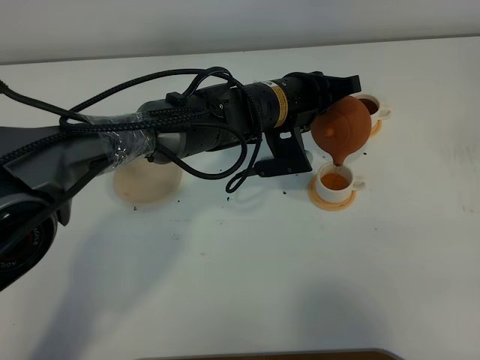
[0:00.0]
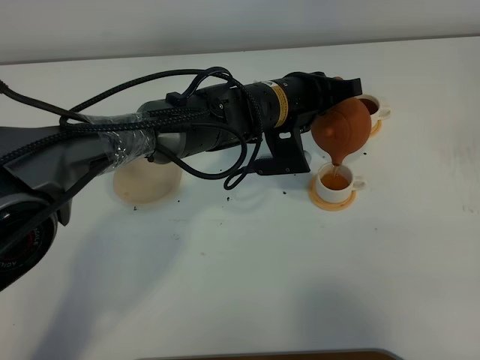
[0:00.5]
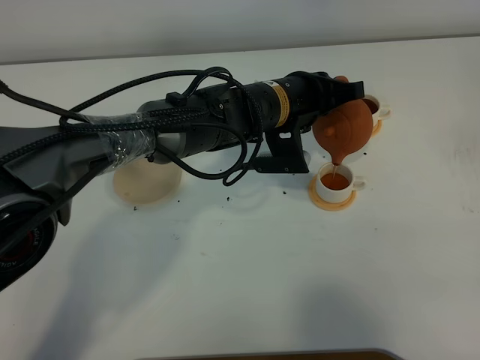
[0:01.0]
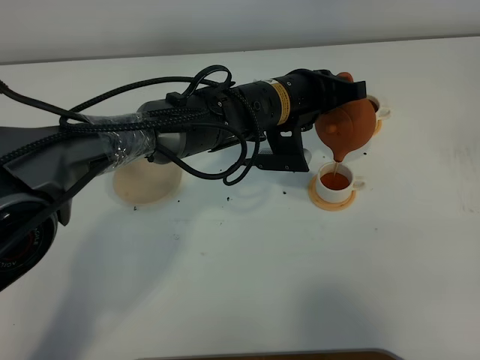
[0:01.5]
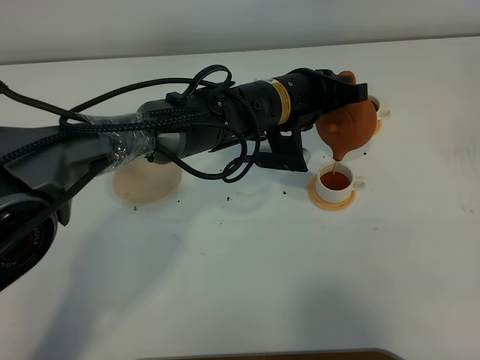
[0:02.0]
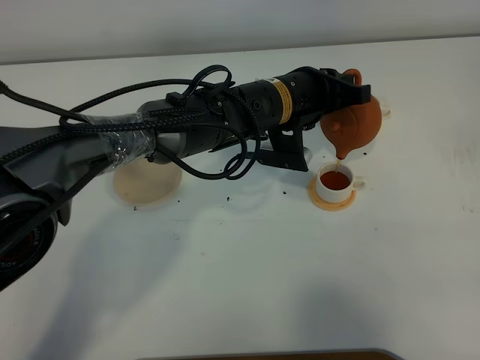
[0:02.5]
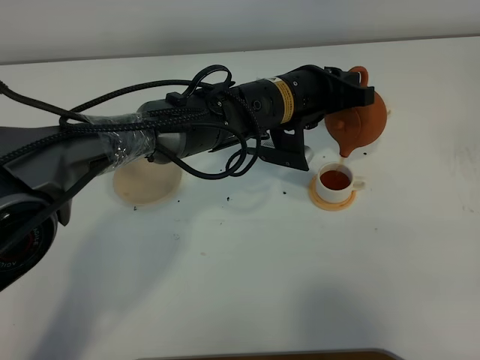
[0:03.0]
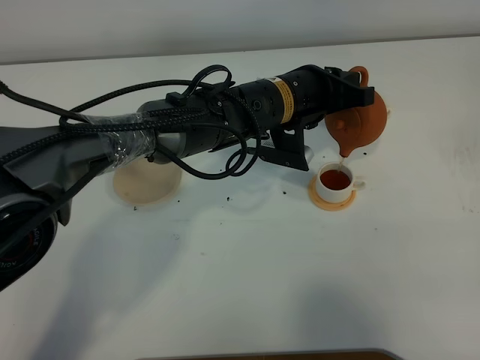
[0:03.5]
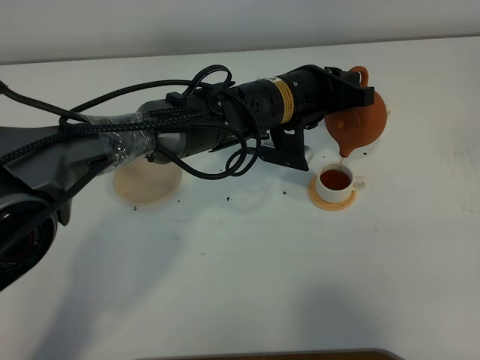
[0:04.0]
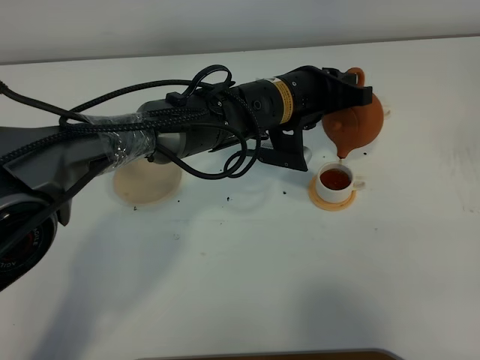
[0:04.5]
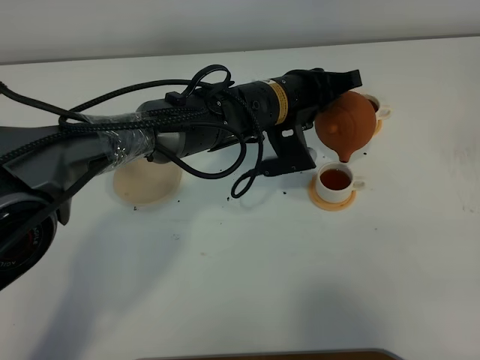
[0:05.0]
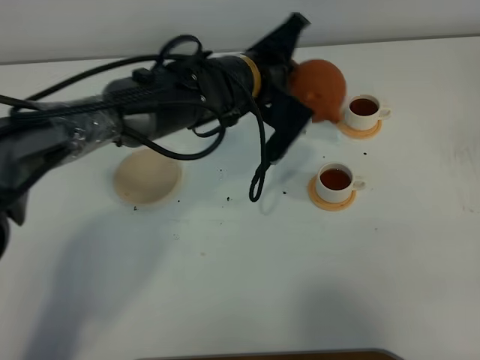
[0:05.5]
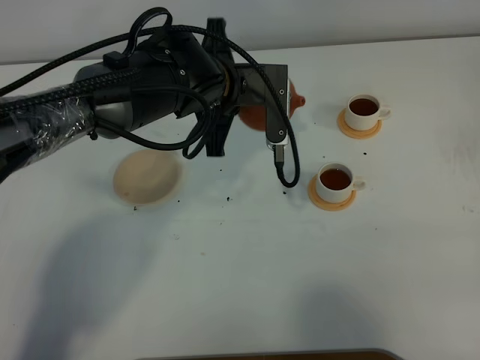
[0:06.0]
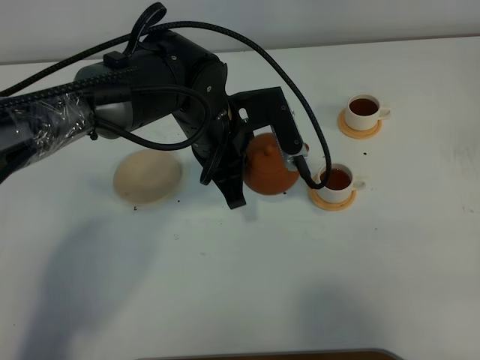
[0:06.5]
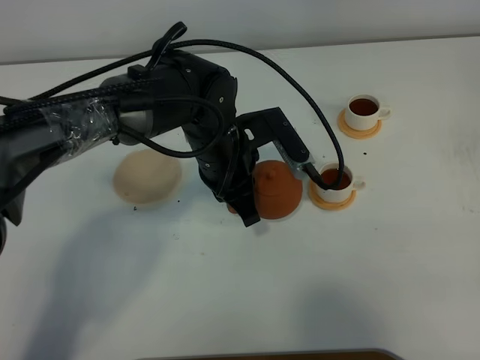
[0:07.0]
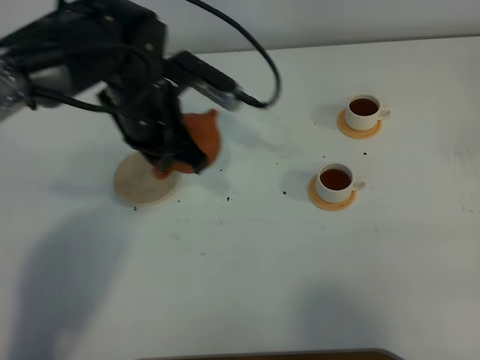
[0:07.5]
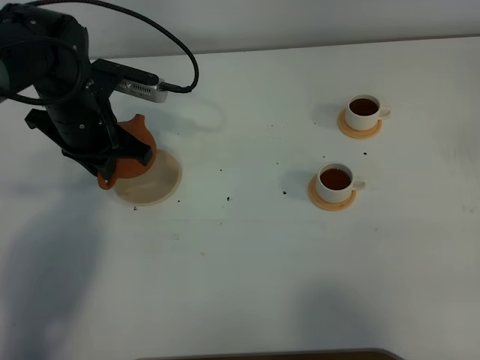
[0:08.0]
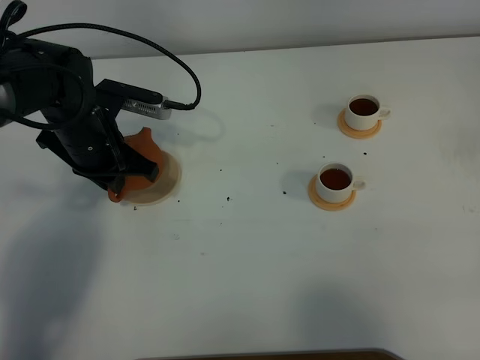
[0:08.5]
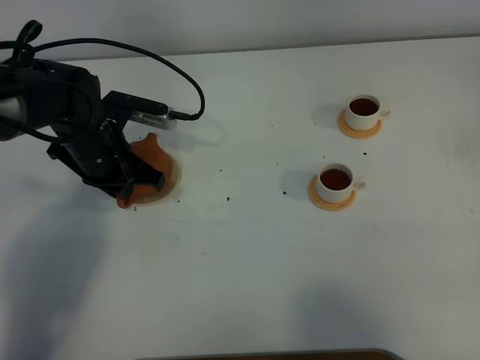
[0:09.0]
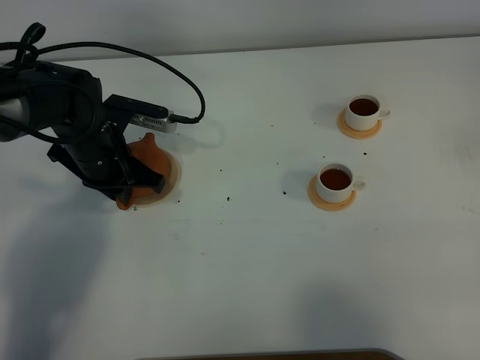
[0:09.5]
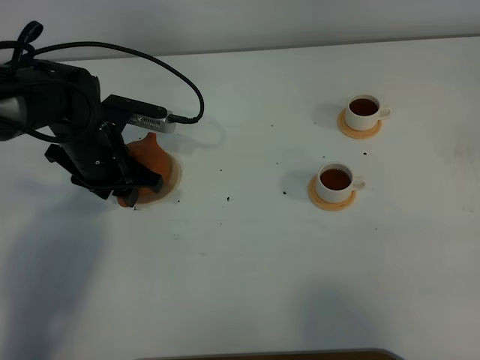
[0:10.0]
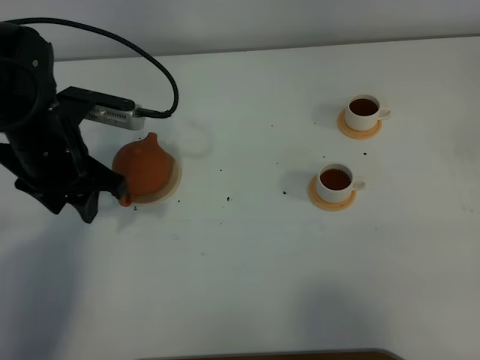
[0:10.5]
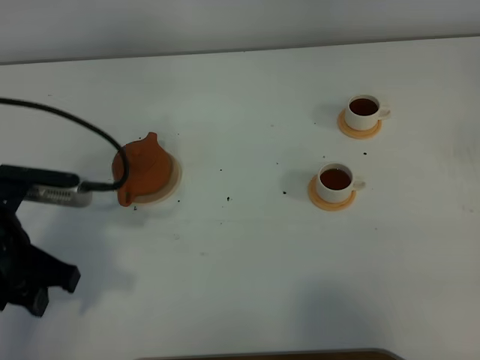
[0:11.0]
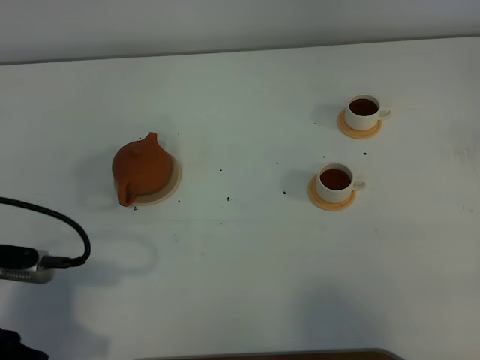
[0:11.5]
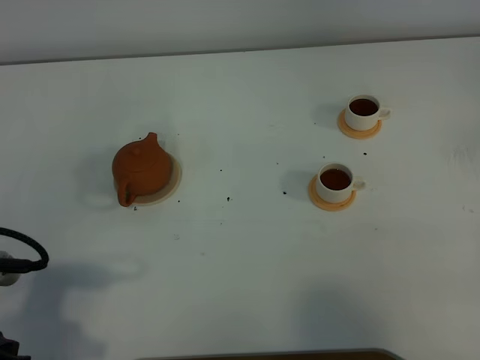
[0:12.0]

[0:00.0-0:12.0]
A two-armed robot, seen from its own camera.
Task of the whole recording: grasp the brown teapot and pour the tea into the two white teacups one by one, put the brown teapot back in its original place.
Step, 0:00.0 to 0:05.0: Pour tea into the teacup with the left gripper.
0:00.0 to 0:04.0: The grippers make only small movements.
0:04.0 to 0:06.0: The left gripper goes some 10 cm to the left.
0:06.0 to 0:08.0: The left gripper goes approximately 15 cm to the left.
0:08.0 to 0:10.0: The left gripper opens its fingers.
0:10.0 to 0:12.0: The left gripper shifts some 25 cm backward.

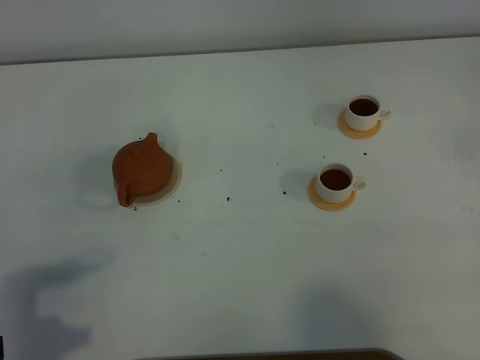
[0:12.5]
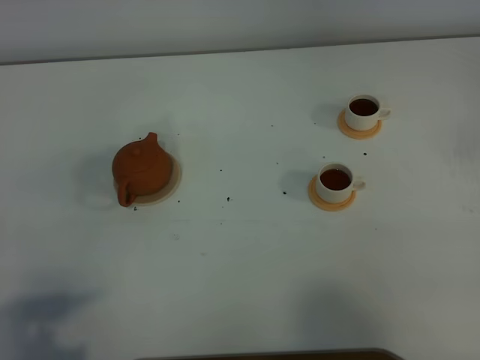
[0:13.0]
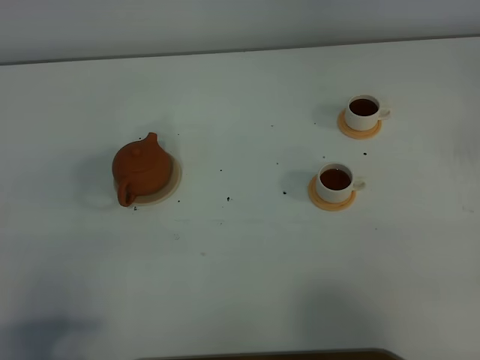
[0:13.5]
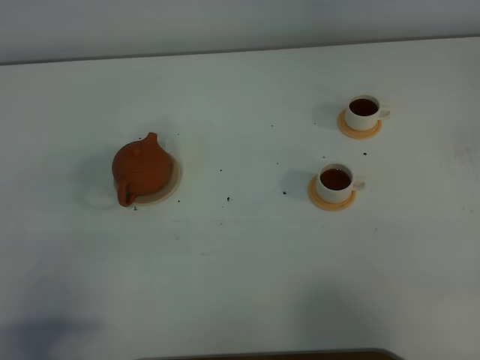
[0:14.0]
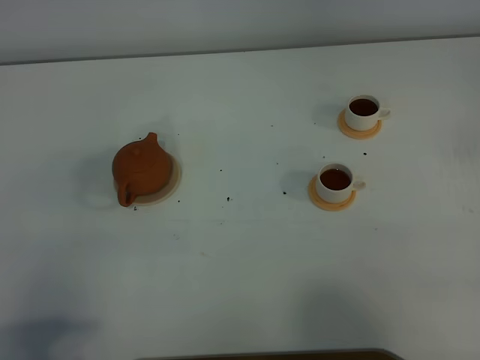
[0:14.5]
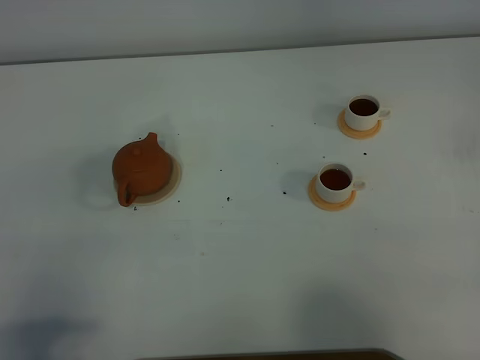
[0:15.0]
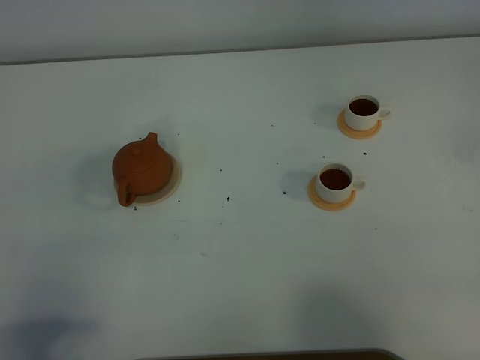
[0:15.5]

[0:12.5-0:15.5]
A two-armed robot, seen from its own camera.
Task of the whole recording: grasp the brown teapot and pour the tea into the two white teacups one by one, put the brown teapot back in its original place.
0:14.0 to 0:15.5: Neither gripper changes place.

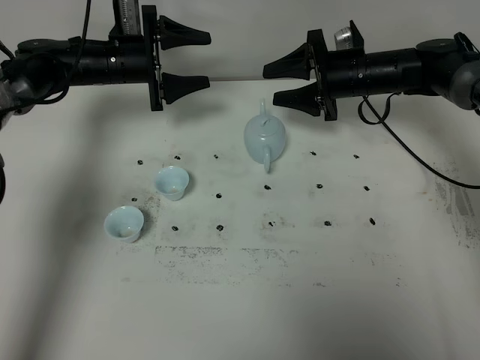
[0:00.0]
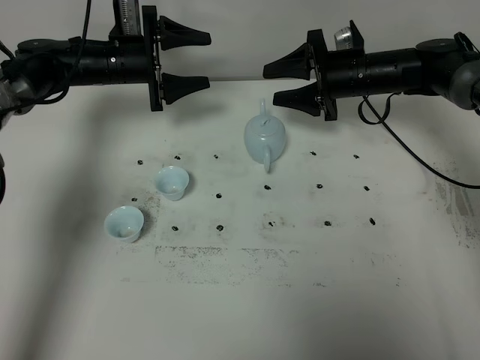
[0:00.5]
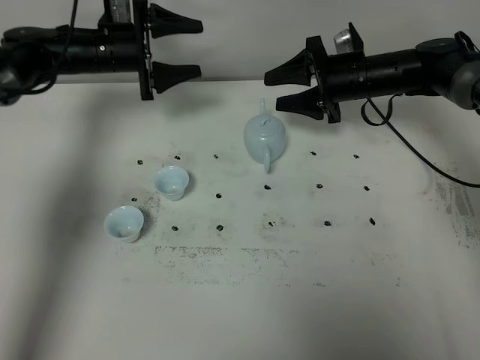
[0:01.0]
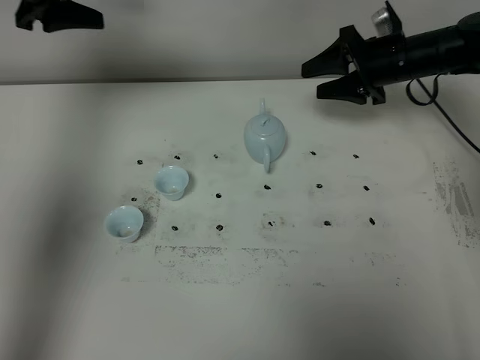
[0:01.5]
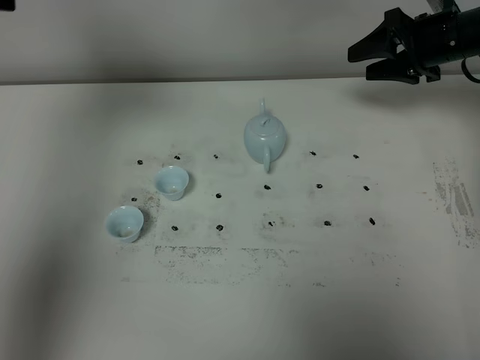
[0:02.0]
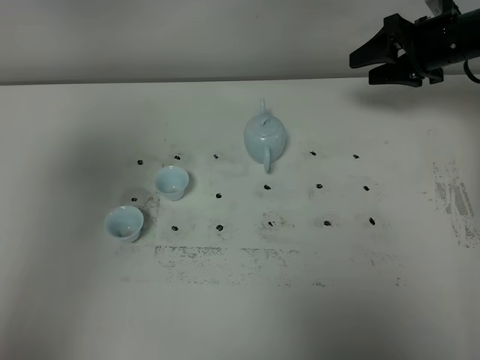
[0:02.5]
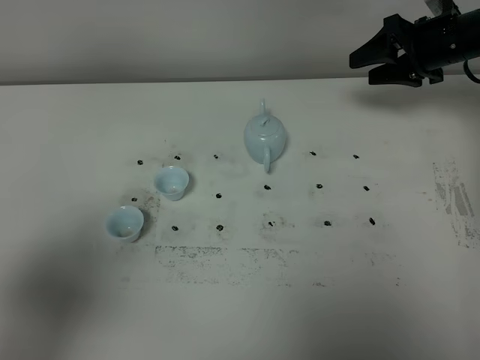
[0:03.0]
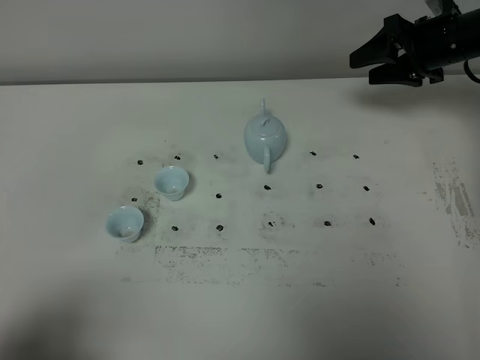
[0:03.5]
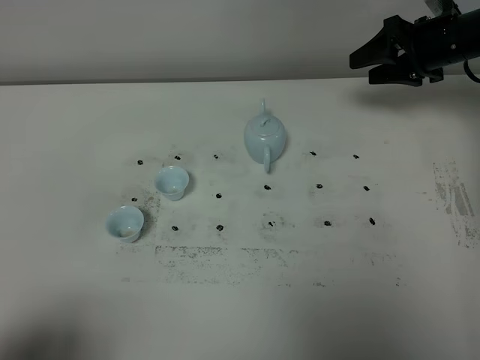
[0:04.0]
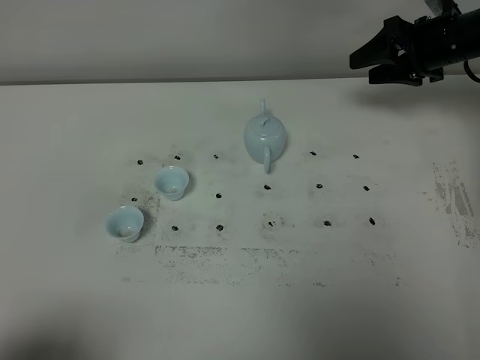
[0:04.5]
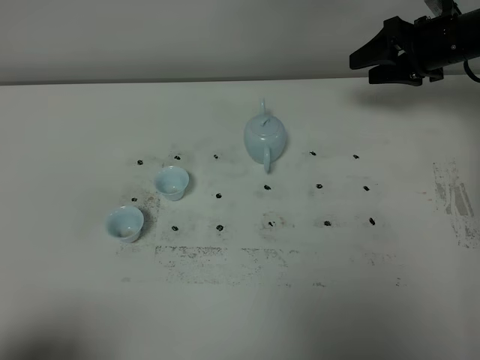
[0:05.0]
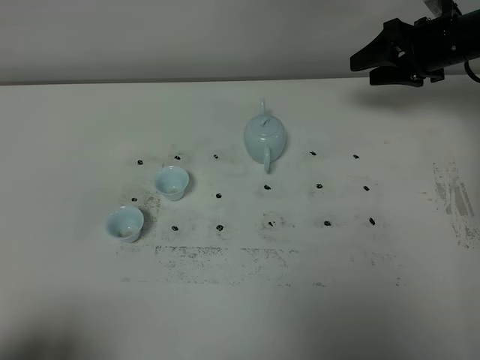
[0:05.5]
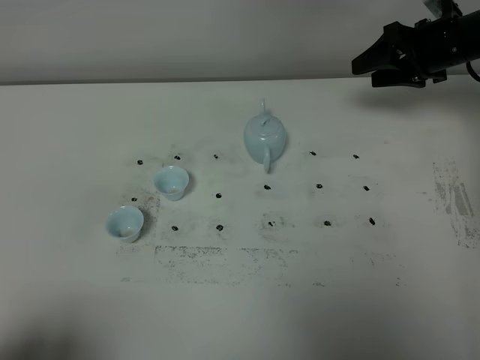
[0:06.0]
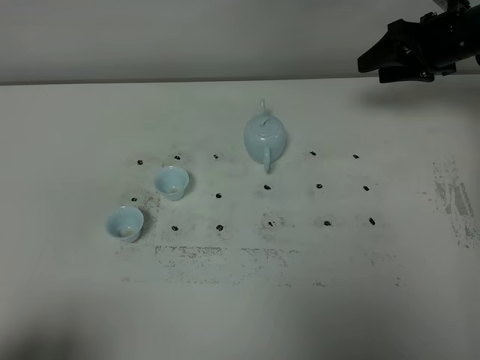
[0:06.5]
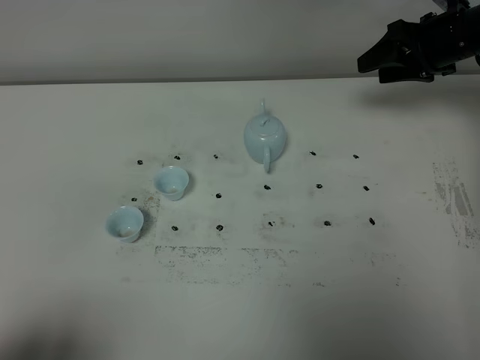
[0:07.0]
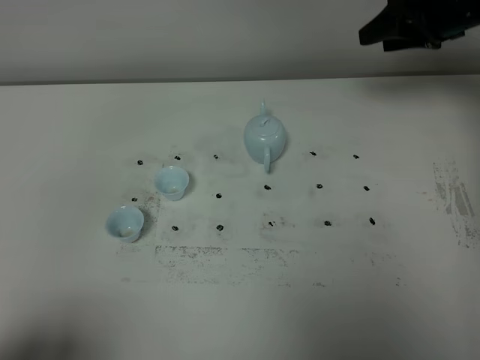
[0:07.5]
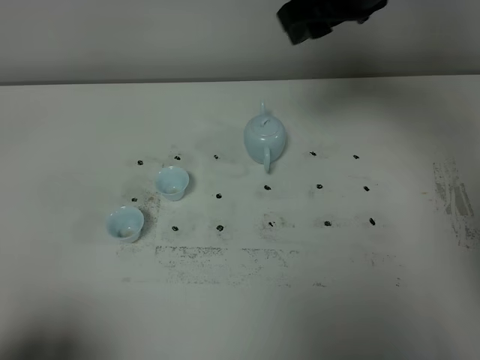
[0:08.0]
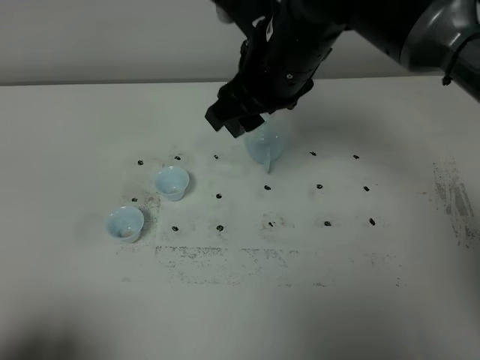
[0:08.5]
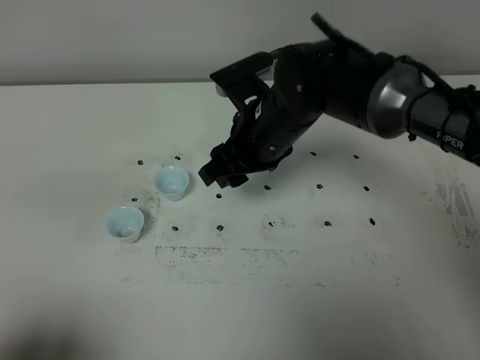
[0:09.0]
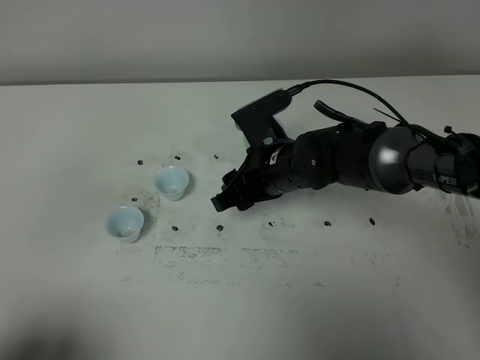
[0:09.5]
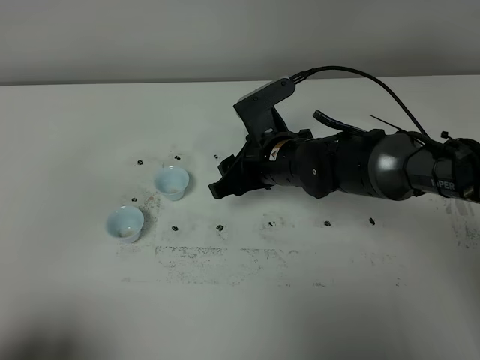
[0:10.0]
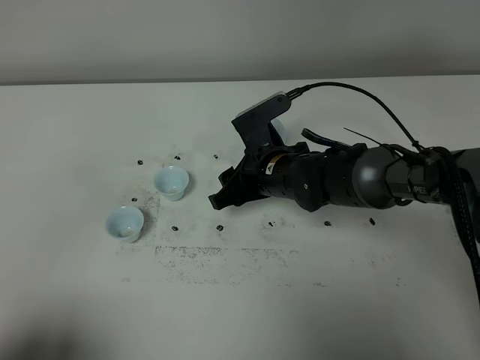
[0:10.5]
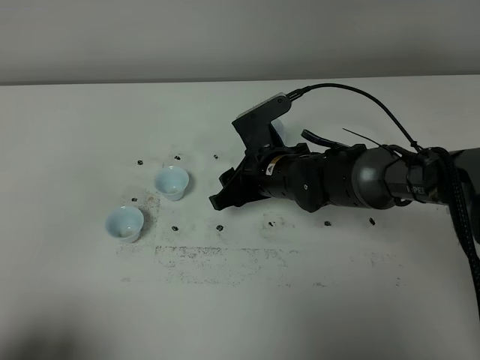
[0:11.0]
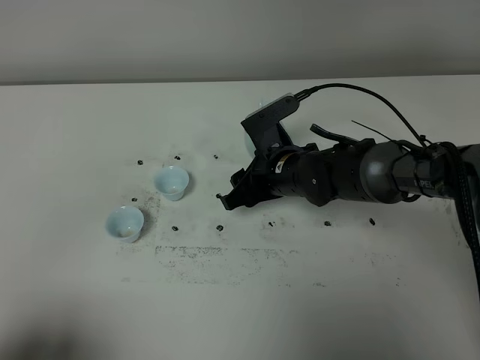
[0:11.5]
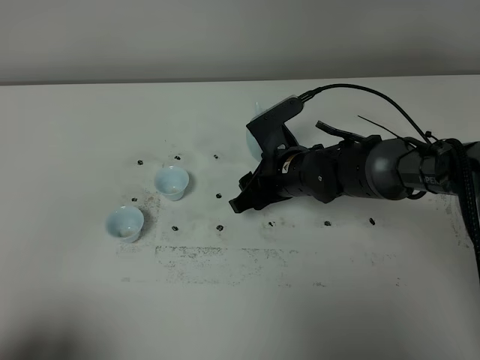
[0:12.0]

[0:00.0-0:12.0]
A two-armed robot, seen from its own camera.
Task of the whole recording: grasp the blue porcelain teapot and pour the tea into the two blue porcelain teacups one by one, put the blue porcelain teapot back in its original place.
0:00.0 to 0:02.0: The left gripper heads upward and backward, covering about 35 cm. The right gripper travels to the right and upward by some 10 cm.
0:02.0 to 0:04.0: The left gripper moves backward and downward, approximately 40 cm.
0:06.0 to 0:08.0: The right gripper goes some 25 cm to the left, upward and backward.
0:08.0 to 0:10.0: The right gripper is displaced downward by approximately 20 cm.
0:10.0 to 0:12.0: The grippers make only small movements.
